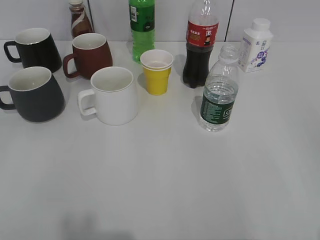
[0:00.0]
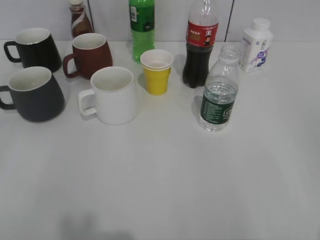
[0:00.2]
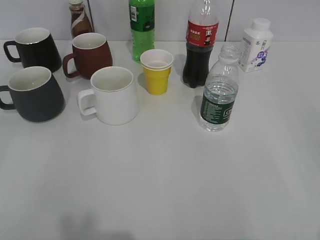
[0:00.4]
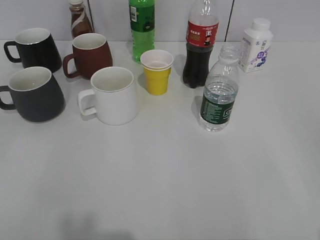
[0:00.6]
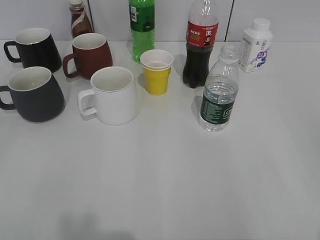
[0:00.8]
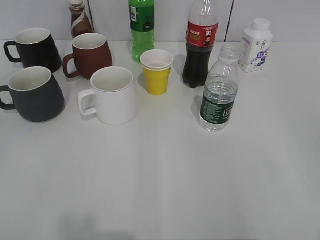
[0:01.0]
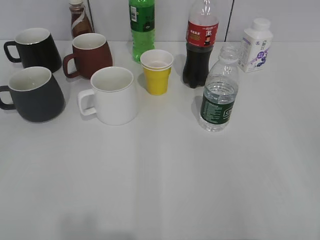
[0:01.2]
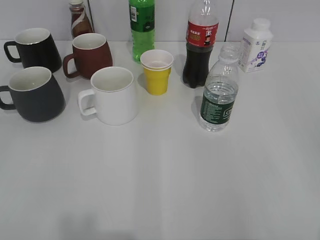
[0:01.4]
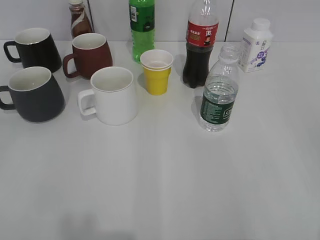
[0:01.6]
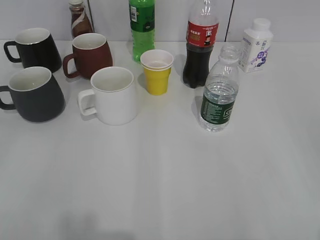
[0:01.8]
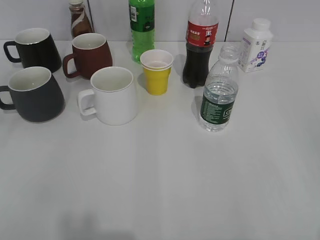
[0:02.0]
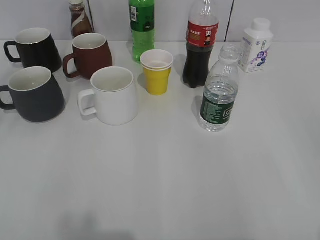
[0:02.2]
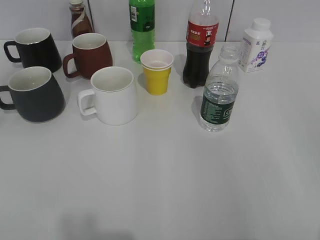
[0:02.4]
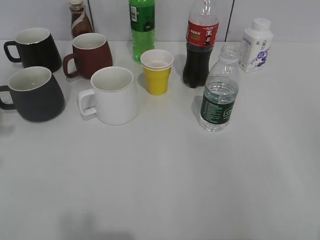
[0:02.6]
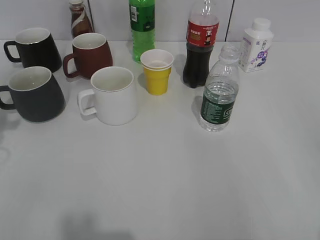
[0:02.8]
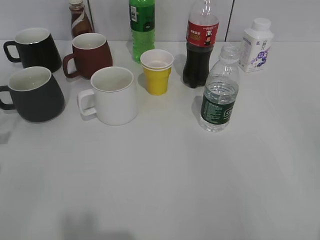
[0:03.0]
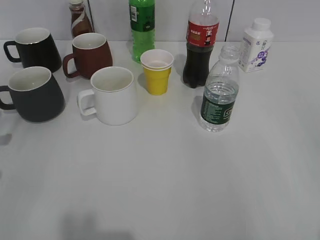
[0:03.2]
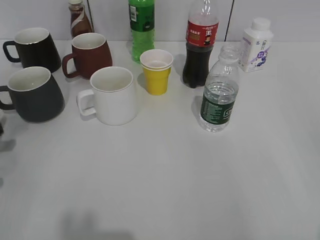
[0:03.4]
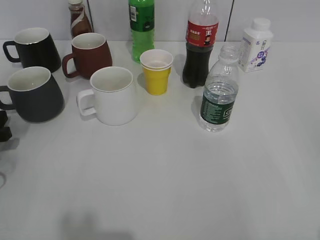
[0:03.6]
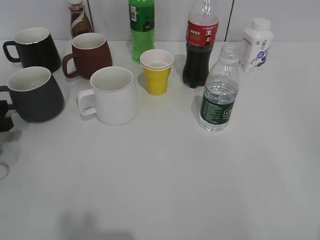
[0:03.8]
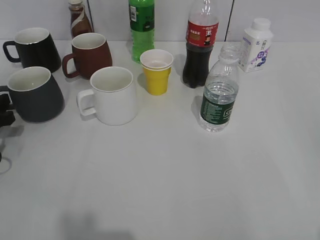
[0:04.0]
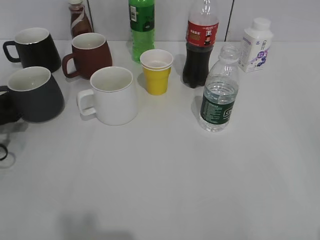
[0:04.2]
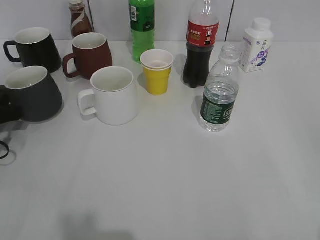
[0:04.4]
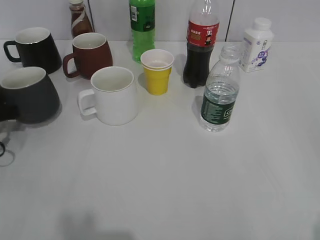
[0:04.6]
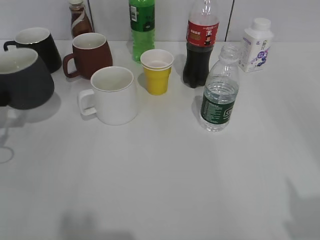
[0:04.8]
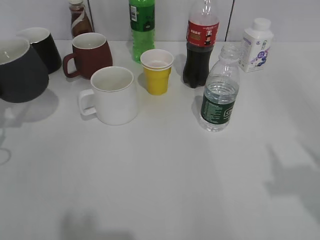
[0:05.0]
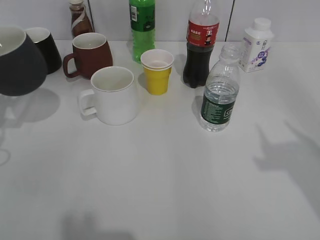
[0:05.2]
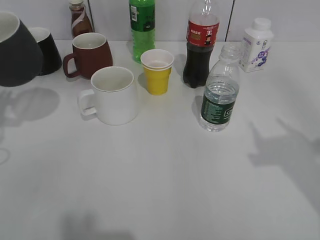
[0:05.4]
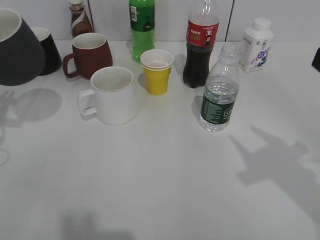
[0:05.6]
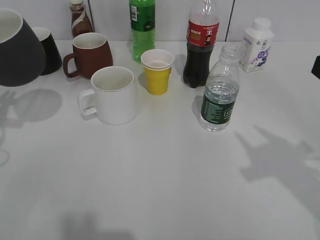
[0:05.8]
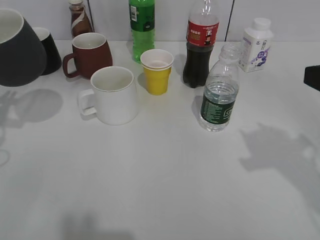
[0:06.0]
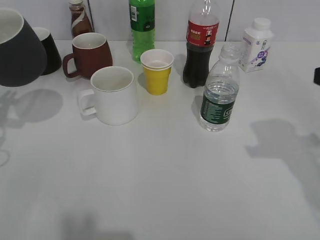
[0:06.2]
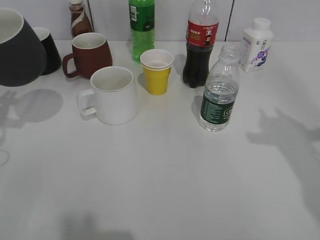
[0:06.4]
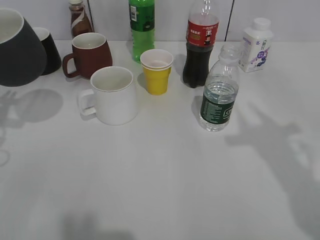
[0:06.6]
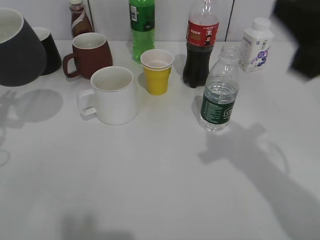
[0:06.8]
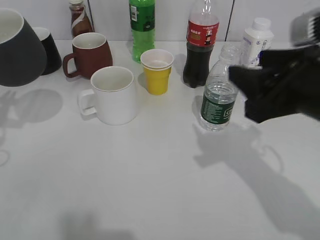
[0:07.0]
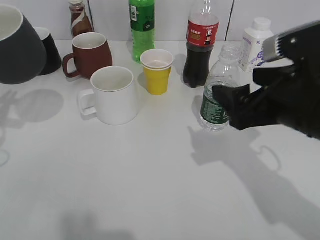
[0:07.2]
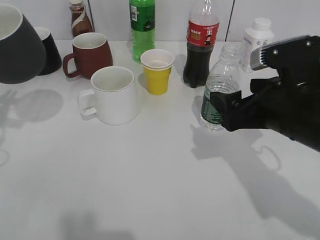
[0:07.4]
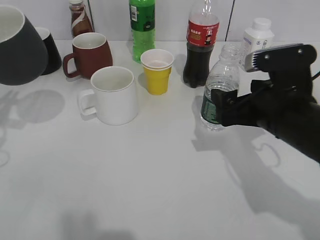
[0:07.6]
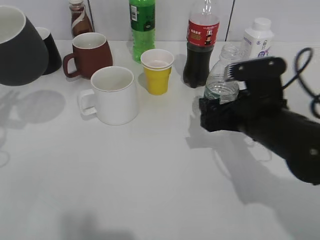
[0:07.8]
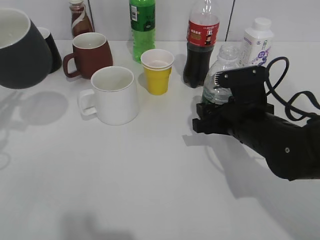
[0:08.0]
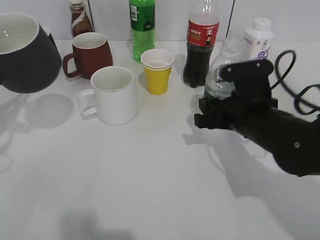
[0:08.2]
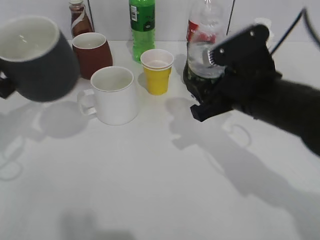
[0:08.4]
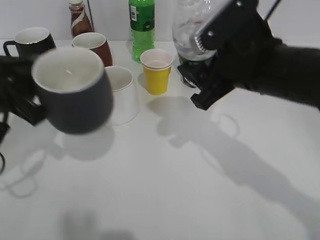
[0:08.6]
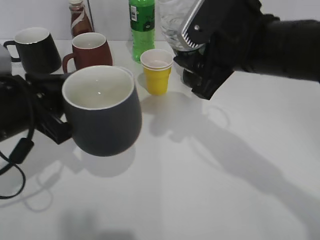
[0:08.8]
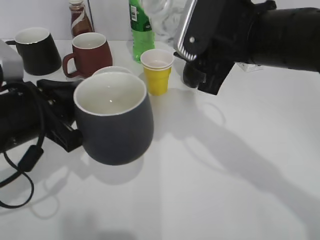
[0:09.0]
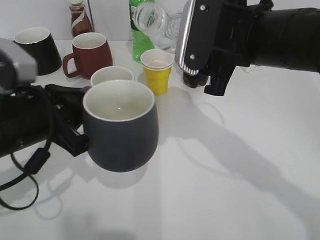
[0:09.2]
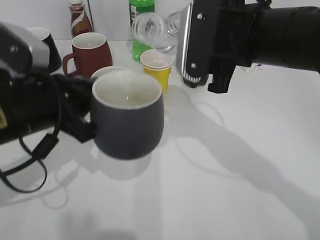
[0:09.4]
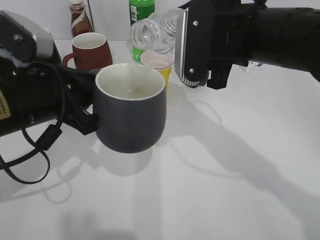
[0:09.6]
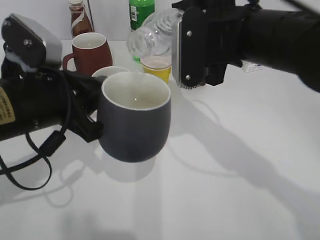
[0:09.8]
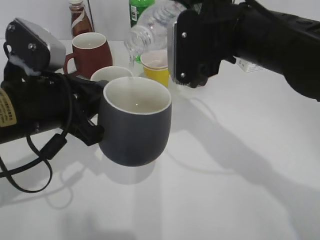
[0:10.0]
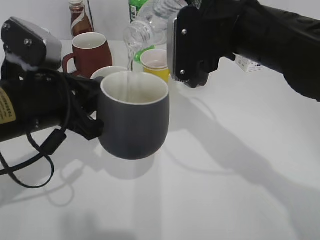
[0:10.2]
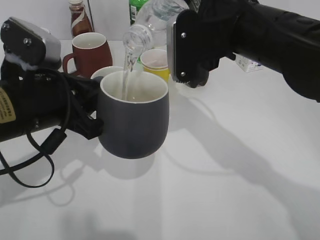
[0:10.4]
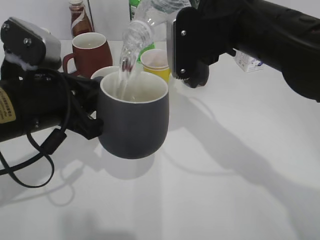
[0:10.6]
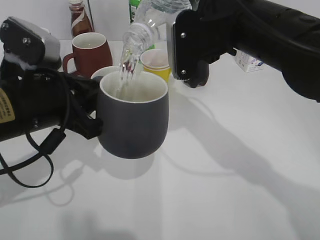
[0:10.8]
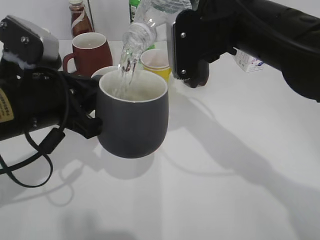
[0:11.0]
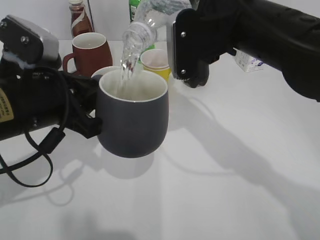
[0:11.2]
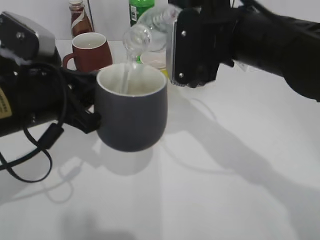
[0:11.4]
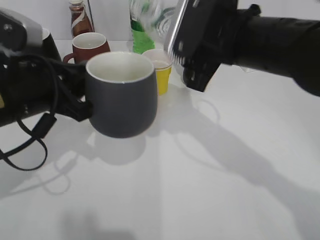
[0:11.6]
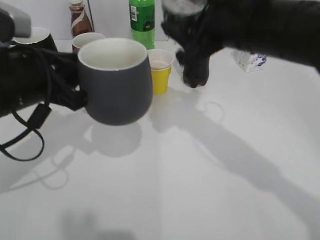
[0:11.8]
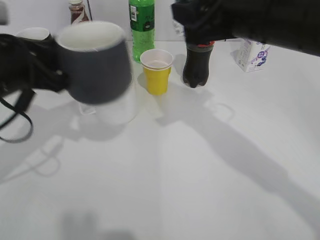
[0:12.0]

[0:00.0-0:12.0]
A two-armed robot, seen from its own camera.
Step, 0:04.6 to 0:05.4: Lift the black cup with left gripper.
Step, 0:05.6 to 0:07.8: Grasp the bottle with water with right gripper.
Step, 0:08.0 to 0:11.8: Pour the water from bottle to cup with right gripper.
0:03.0 to 0:04.4: The left gripper heads downward and forward, covering about 10 cm, and closes its fingers.
0:04.4 to 0:06.0: The right gripper travels forward by approximately 20 cm, and closes its fingers. The left gripper shifts roughly 10 cm upward.
0:06.0 to 0:07.6: The right gripper is displaced to the left, downward and forward by about 15 cm, and opens.
0:07.6 to 0:09.0: The right gripper is displaced upward and to the left by roughly 10 cm, and closes its fingers. The left gripper heads to the right, covering roughly 15 cm.
0:10.4 to 0:12.0: The left gripper moves roughly 5 cm.

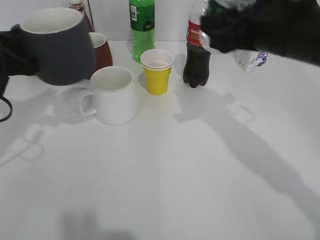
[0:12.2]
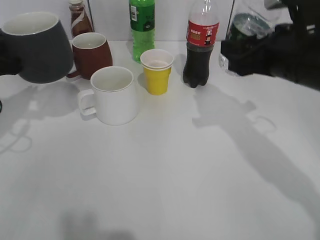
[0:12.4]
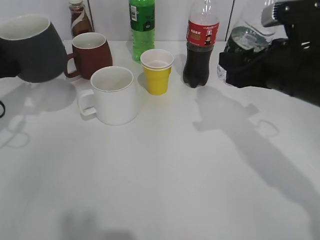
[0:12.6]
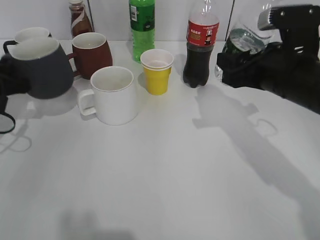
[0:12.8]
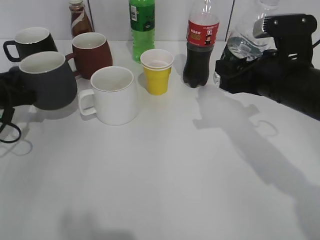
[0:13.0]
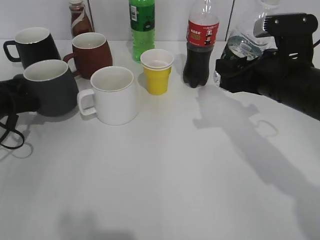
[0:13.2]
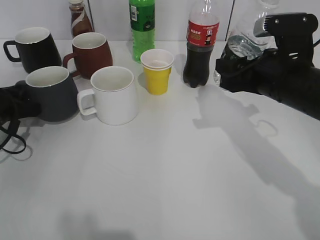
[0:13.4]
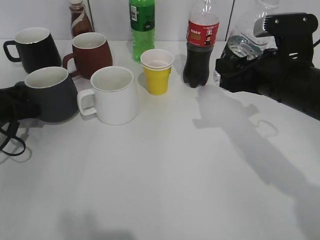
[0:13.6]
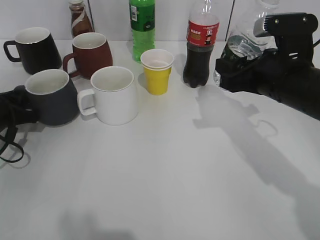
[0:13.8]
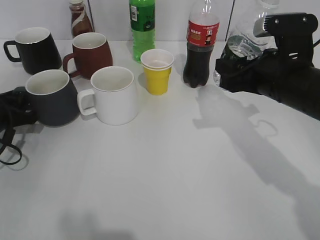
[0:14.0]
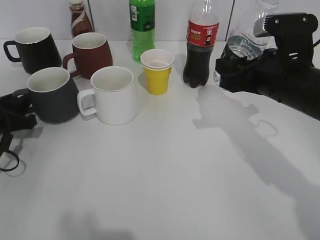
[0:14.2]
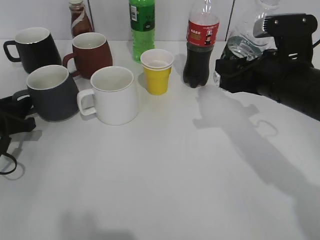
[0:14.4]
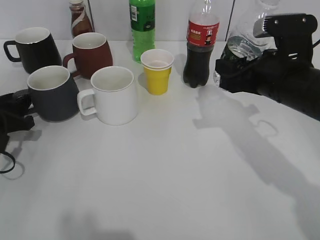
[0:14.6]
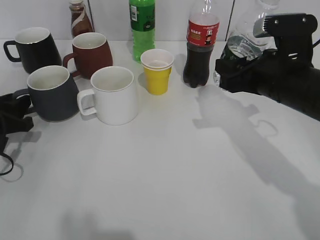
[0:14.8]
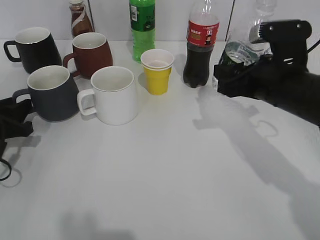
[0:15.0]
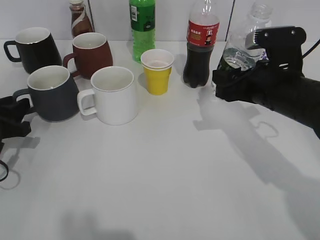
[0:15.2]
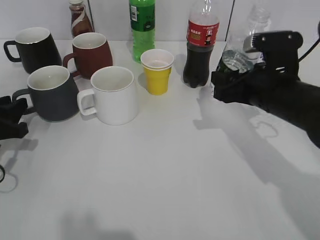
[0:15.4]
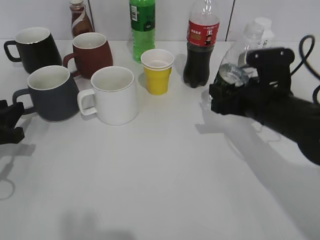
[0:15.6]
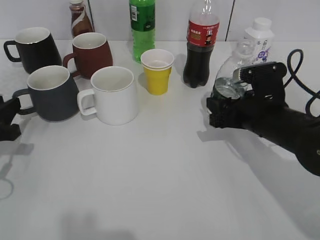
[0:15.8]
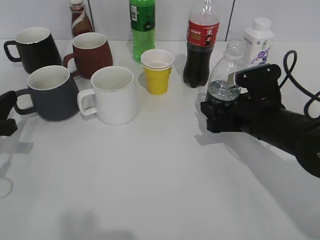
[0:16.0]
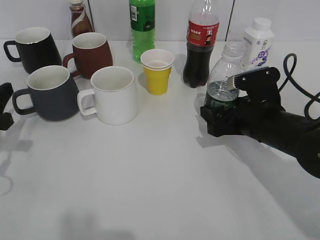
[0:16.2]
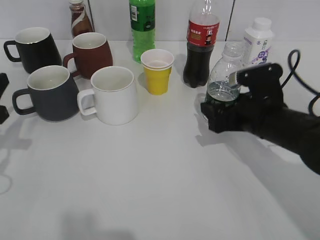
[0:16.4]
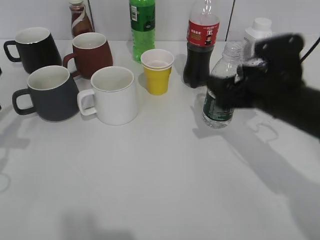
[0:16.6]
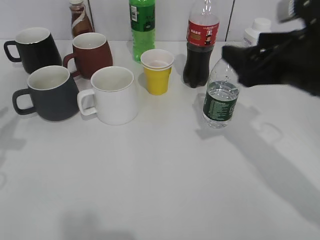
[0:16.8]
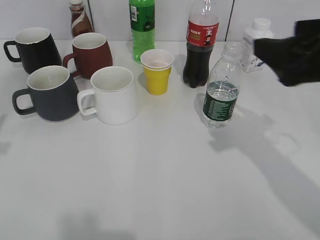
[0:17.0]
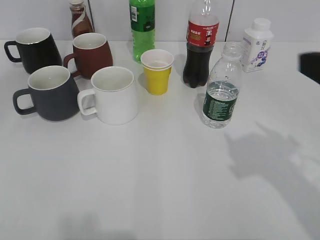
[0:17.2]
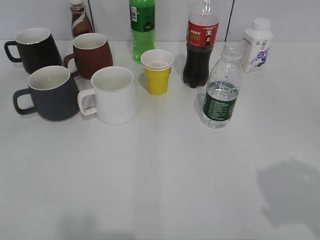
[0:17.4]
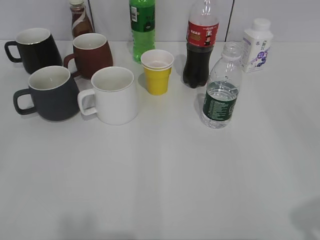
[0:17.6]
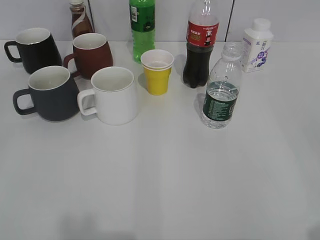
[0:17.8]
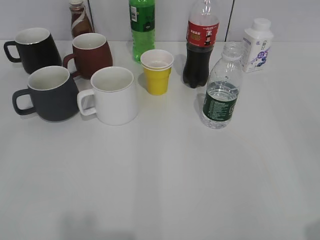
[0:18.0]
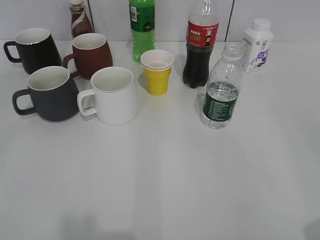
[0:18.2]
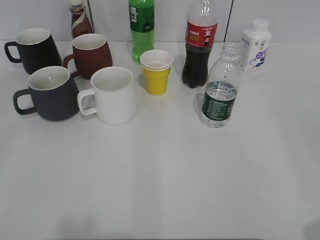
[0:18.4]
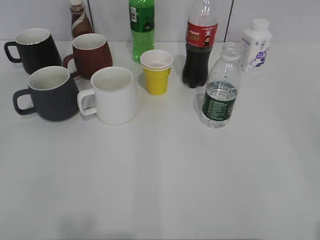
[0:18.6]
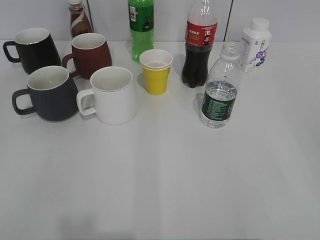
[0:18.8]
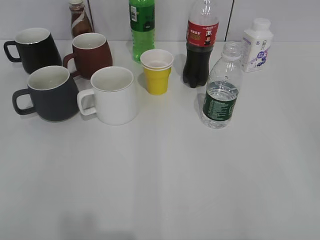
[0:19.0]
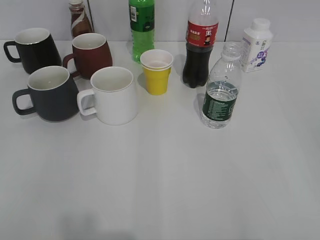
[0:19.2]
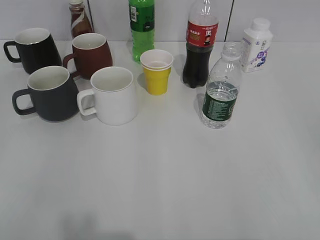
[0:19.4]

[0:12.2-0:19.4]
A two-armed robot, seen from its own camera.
Step, 0:12.2 to 0:15.0: Place the black cup on the table with left gripper.
Step, 0:15.2 to 0:16.4: Place the water bottle on the table with right gripper.
0:12.2 to 0:13.6: The left gripper is displaced downward and to the left by roughly 15 cm. Meanwhile the right gripper shifts roughly 10 cm downward.
0:13.6 to 0:15.0: The left gripper opens.
0:15.0 to 0:16.6: The right gripper opens up; the left gripper heads upward, covering roughly 10 cm.
0:16.6 to 0:18.0: The left gripper goes some 25 cm backward and upward, and opens its fingers; the right gripper heads backward and to the right, covering about 30 cm.

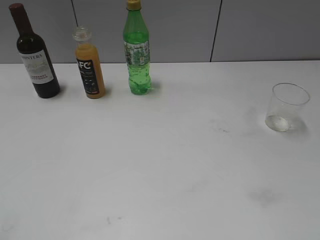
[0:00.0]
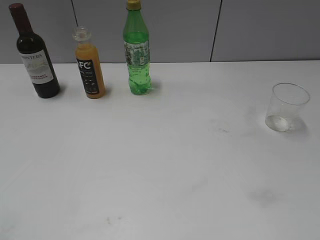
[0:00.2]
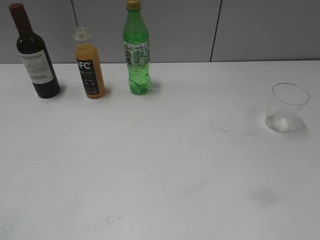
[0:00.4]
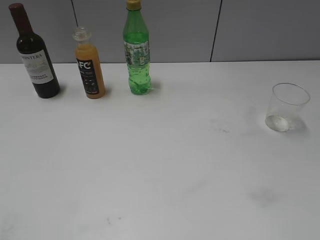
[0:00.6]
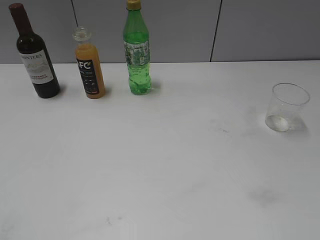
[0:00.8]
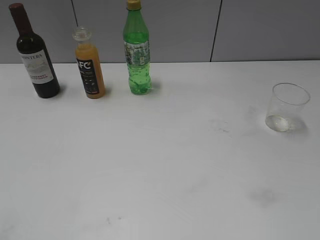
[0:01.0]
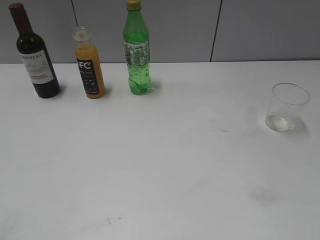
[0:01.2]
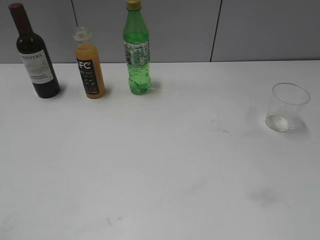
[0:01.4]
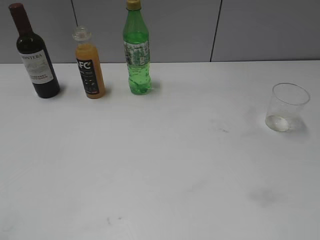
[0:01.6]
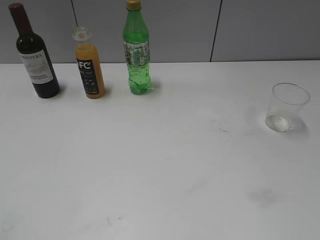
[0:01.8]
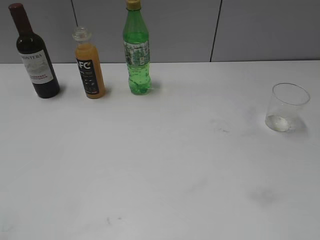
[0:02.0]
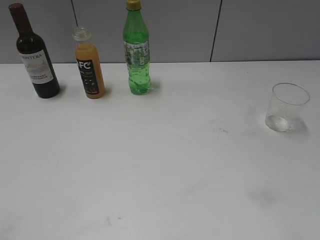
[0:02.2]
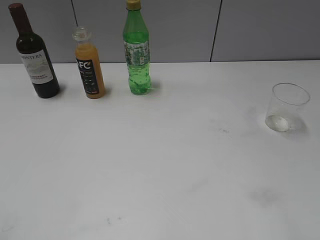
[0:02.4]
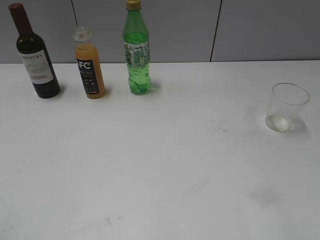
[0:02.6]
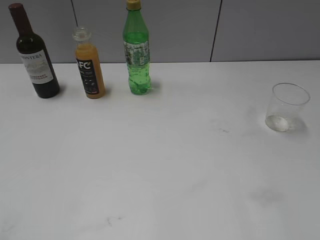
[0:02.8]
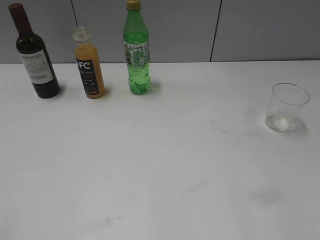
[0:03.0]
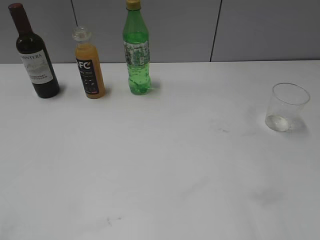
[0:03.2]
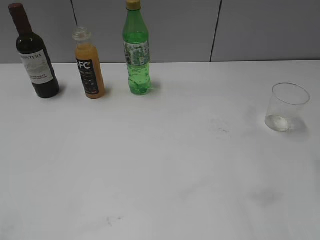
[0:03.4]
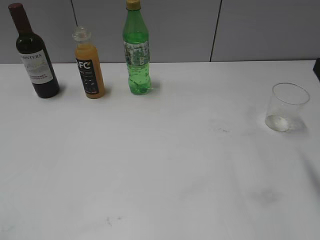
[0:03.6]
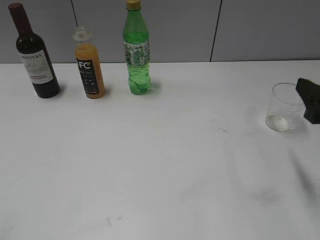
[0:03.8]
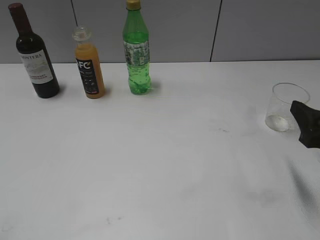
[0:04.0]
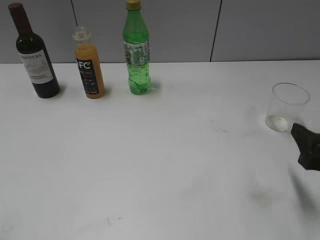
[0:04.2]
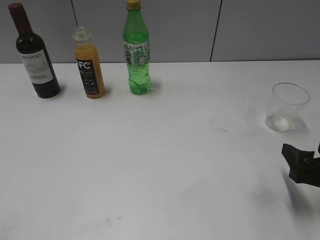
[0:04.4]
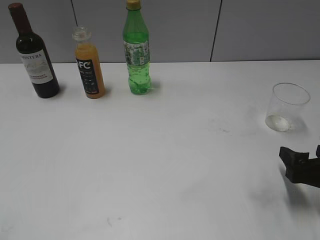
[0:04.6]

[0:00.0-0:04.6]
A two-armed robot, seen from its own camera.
0:03.0 to 0:04.6: The right gripper is displaced downward by approximately 15 cm, and opens up.
